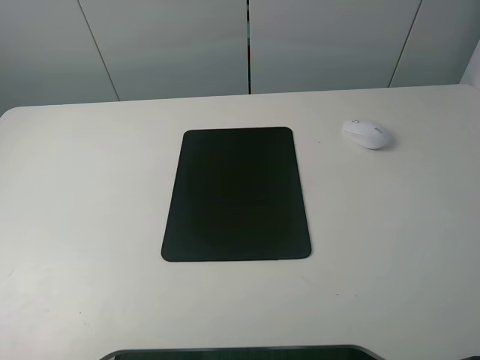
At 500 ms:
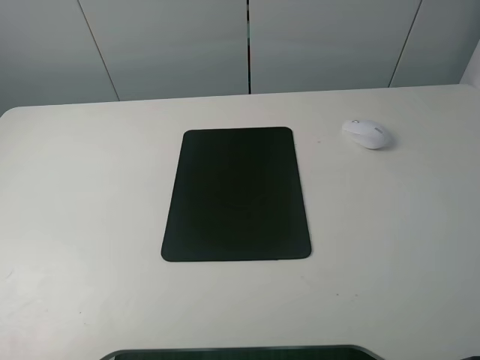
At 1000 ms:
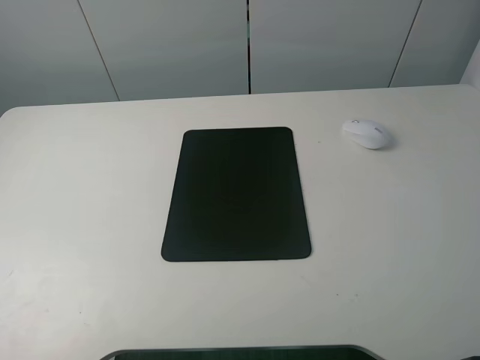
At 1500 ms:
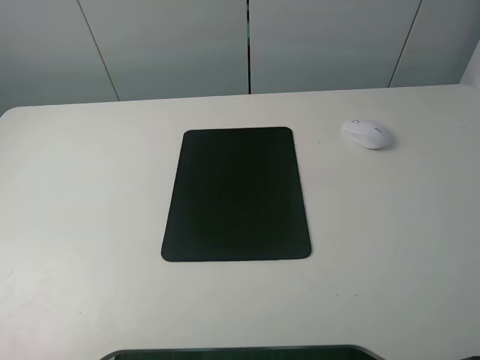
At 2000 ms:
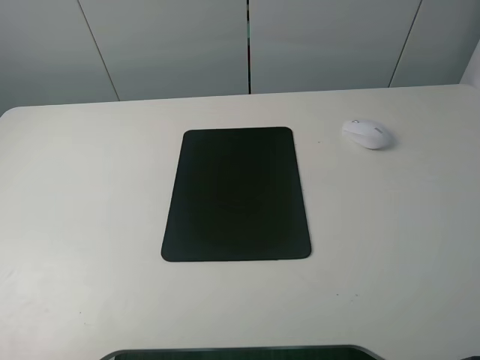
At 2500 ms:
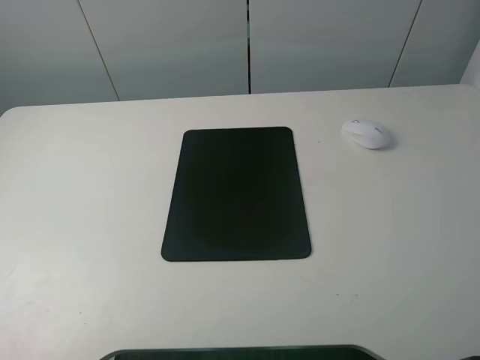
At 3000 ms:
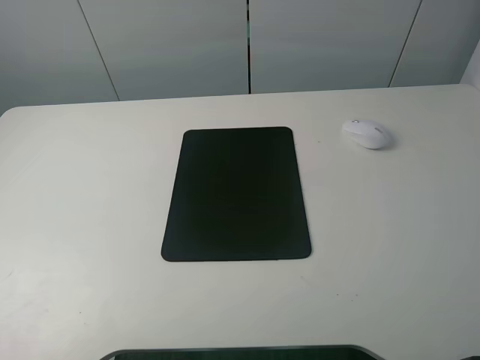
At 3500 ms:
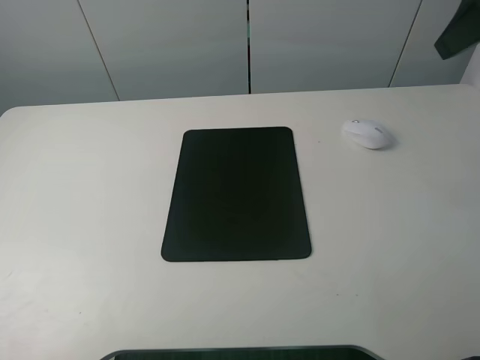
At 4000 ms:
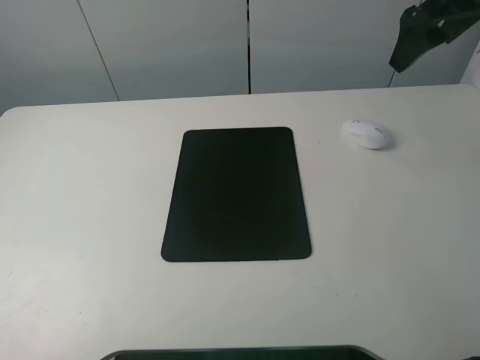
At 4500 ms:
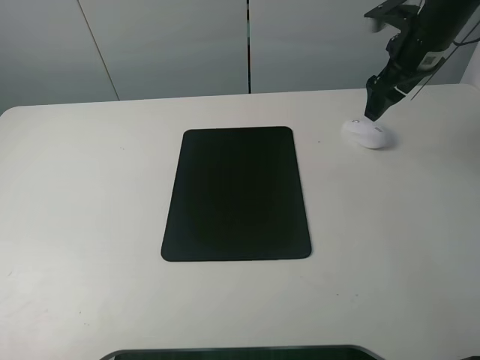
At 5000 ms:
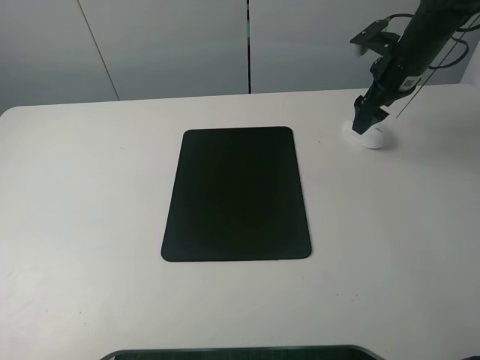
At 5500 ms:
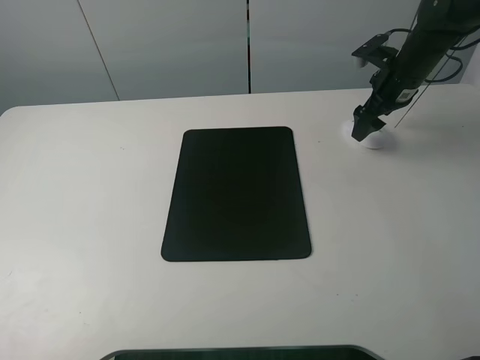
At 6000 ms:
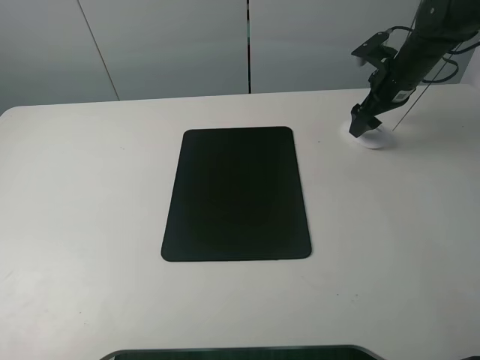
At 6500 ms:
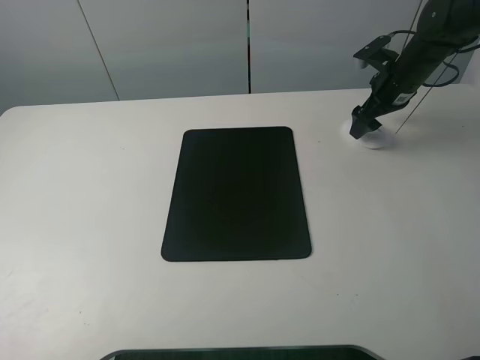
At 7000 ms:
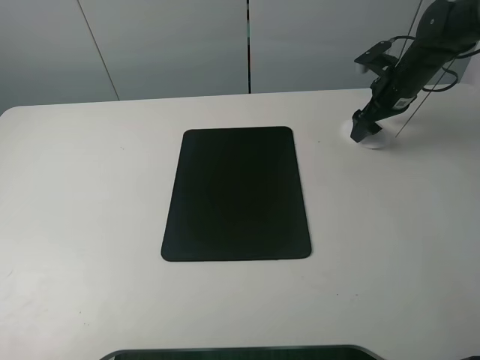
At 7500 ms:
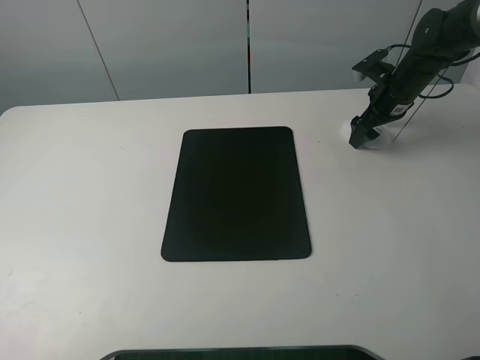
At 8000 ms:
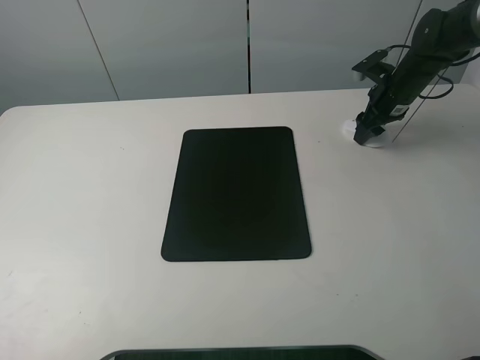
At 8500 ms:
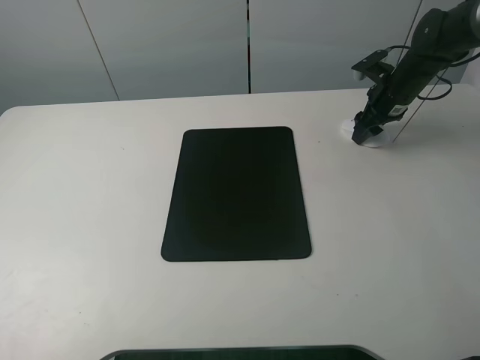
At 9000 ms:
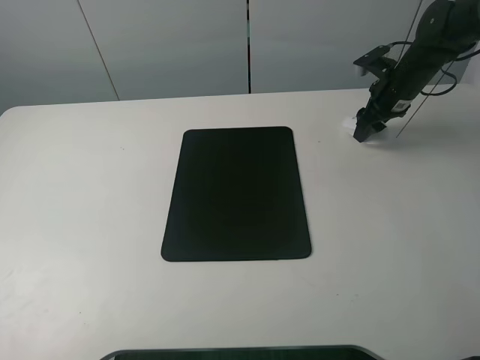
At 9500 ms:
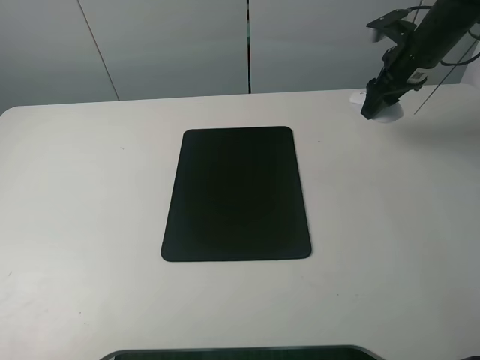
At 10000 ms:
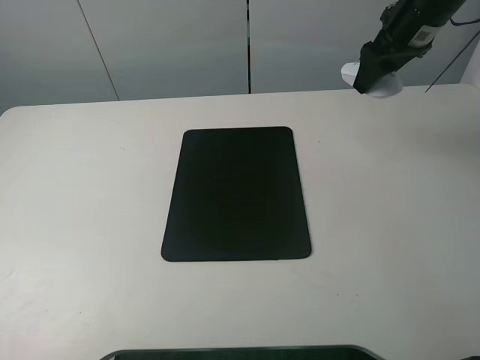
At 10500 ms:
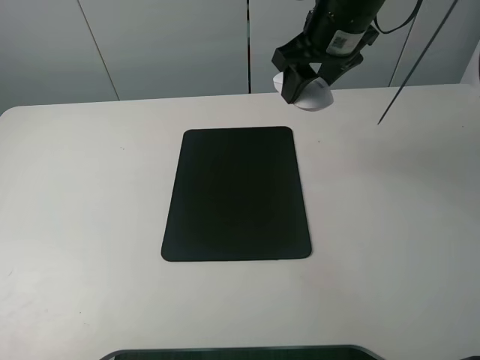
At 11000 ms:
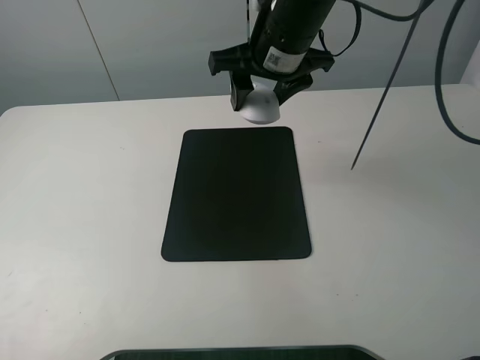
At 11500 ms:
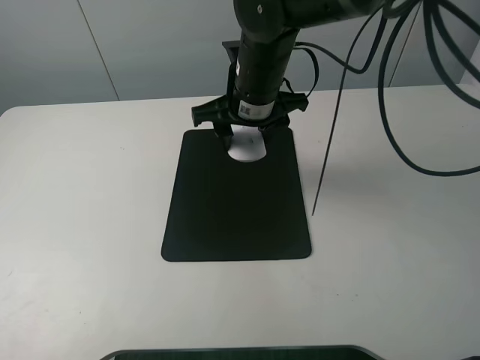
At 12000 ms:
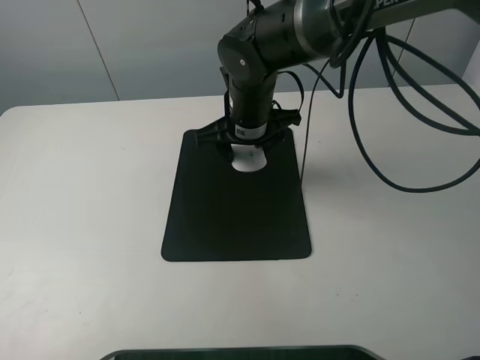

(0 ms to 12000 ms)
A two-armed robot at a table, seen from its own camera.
Step, 0 ms - 8000 ms: Grasp the mouse with the right gripper.
0 ms - 2000 ms: Both grippers stay put.
2000 ms - 4000 ms: The right gripper is displaced forward by some 35 cm.
4000 ms - 6000 ms: The right gripper goes about 20 cm downward and forward.
6000 ms - 8000 ms: The right gripper closes its fingers.
8000 ms - 10000 ms: The right gripper shifts some 15 cm upward.
10000 ms - 12000 ms: The right gripper goes about 25 cm to the left and downward.

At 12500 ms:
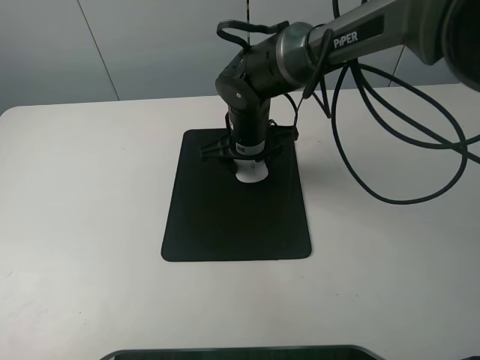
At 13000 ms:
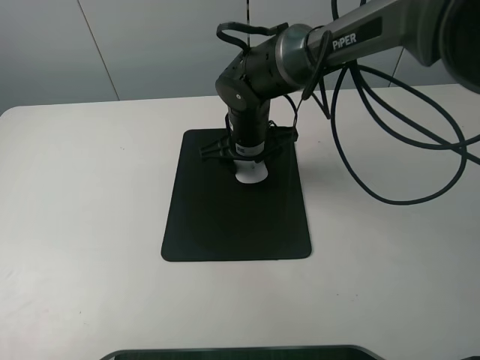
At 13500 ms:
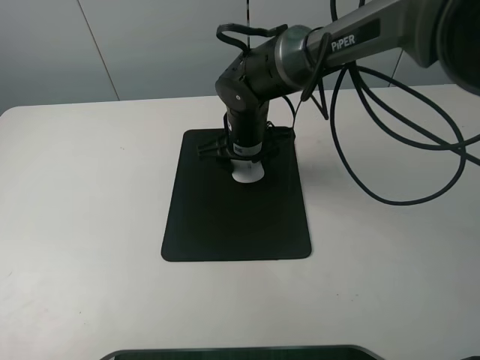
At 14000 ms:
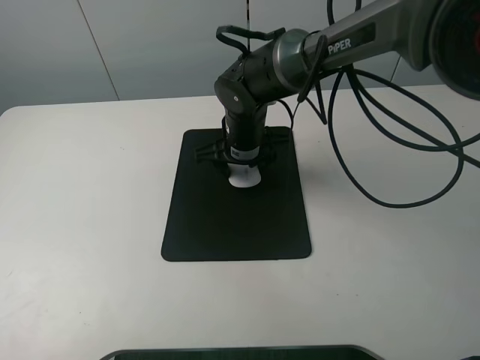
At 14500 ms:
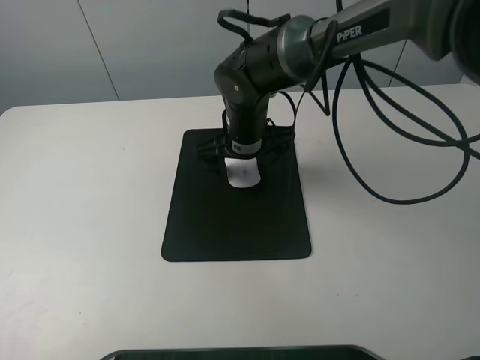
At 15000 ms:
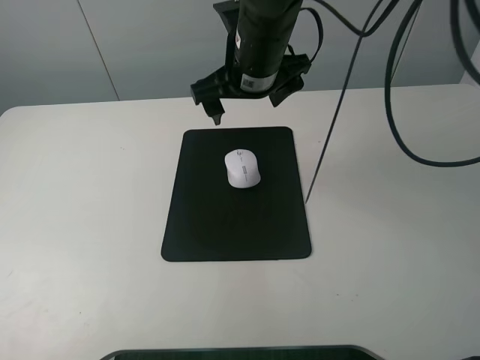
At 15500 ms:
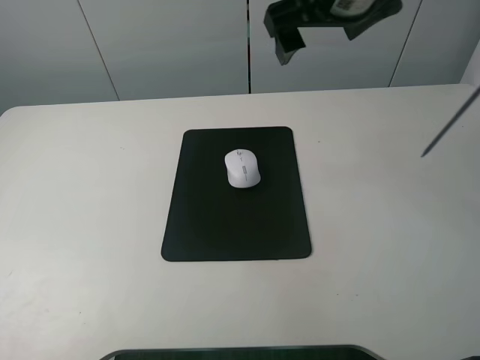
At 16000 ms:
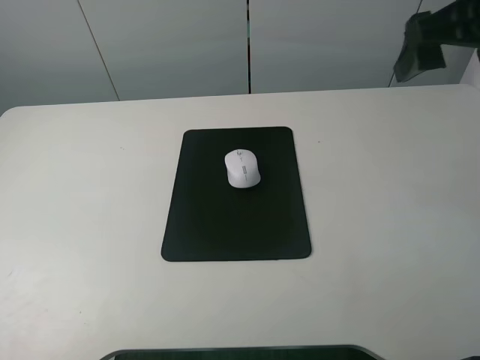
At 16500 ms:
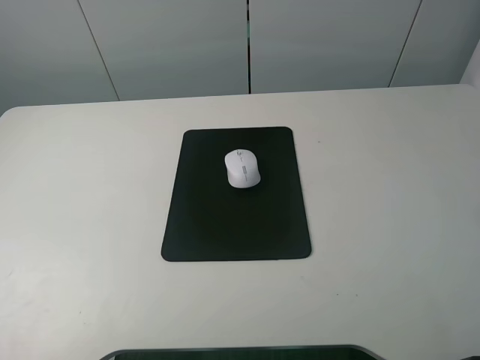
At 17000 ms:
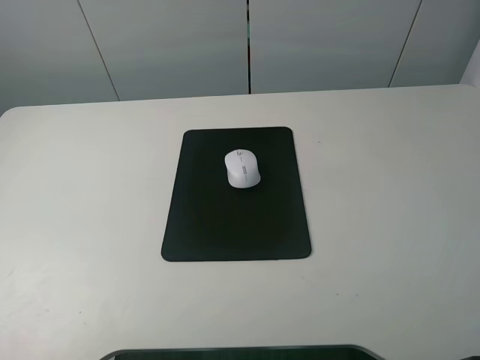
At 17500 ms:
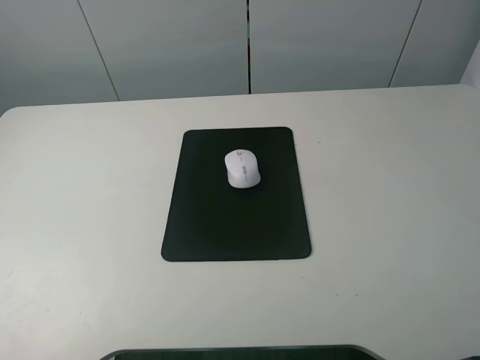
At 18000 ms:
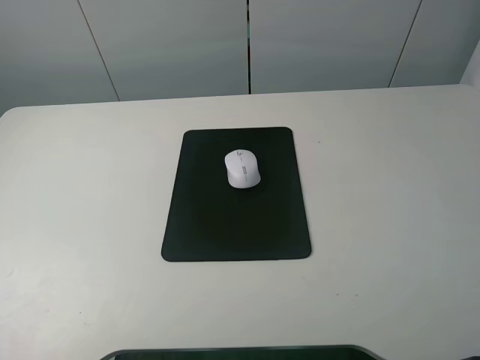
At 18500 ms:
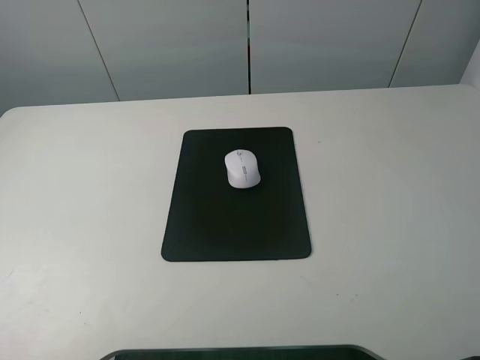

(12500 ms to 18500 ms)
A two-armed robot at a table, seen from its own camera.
12500 ms - 14500 ms: The right gripper opens.
14500 ms - 16500 ms: The right gripper is displaced to the right, upward and backward by about 40 cm.

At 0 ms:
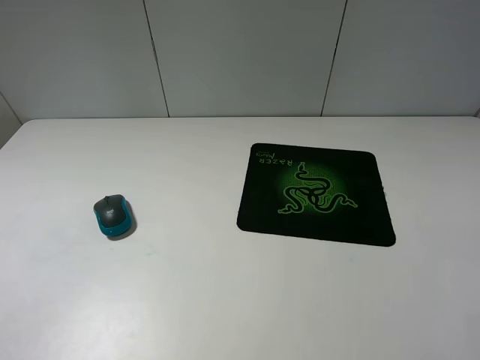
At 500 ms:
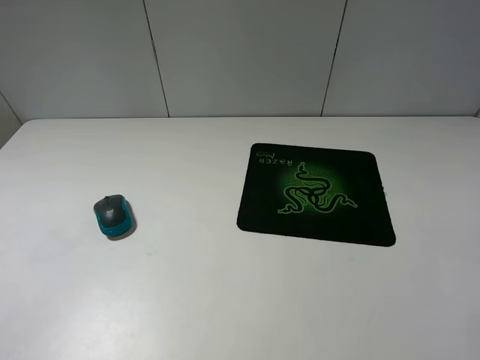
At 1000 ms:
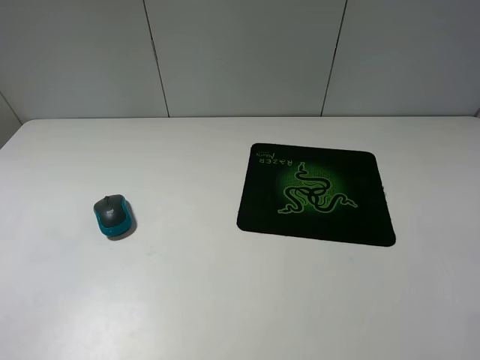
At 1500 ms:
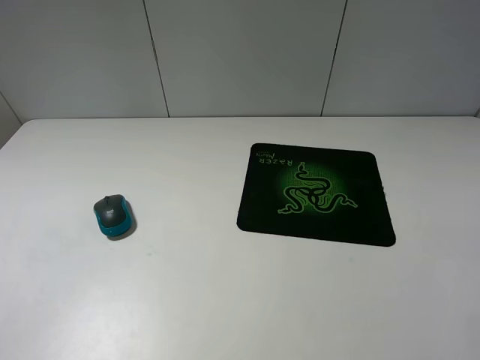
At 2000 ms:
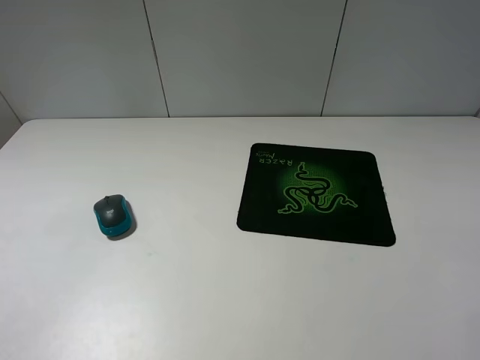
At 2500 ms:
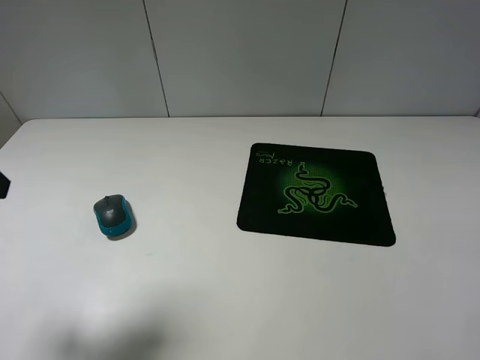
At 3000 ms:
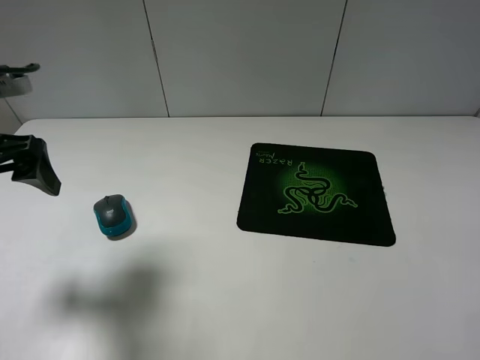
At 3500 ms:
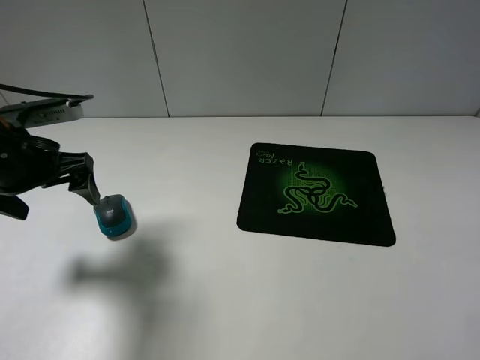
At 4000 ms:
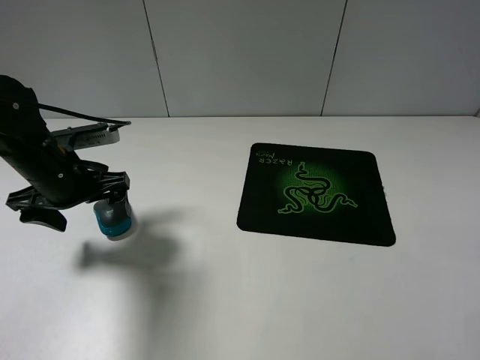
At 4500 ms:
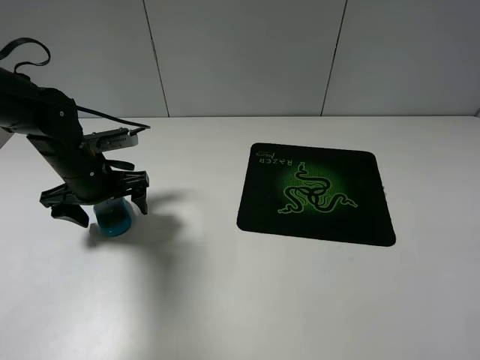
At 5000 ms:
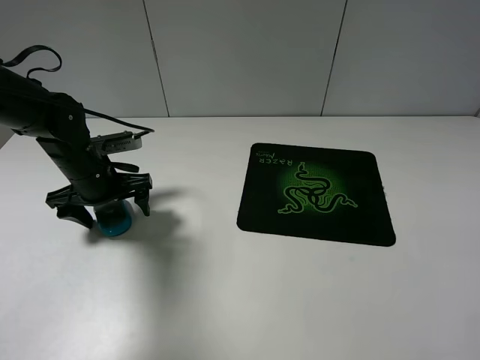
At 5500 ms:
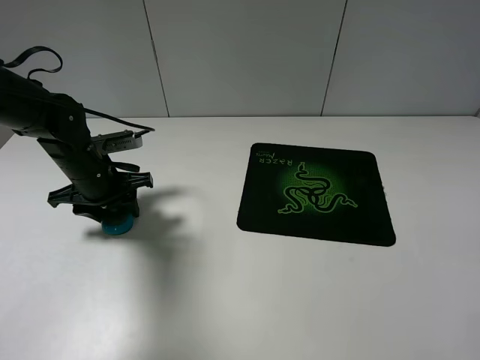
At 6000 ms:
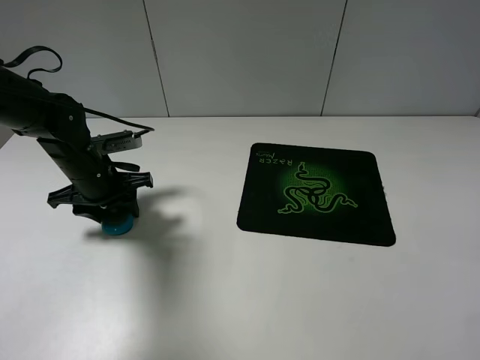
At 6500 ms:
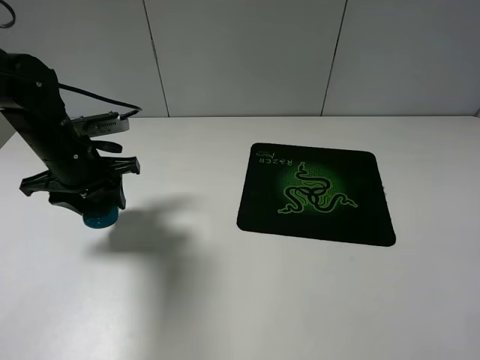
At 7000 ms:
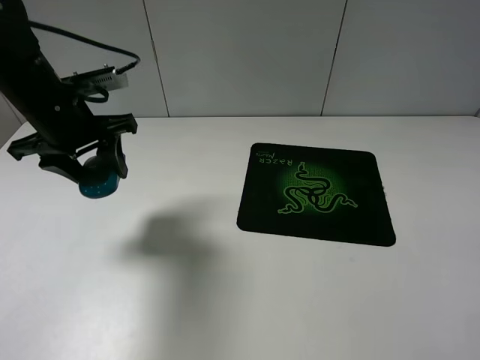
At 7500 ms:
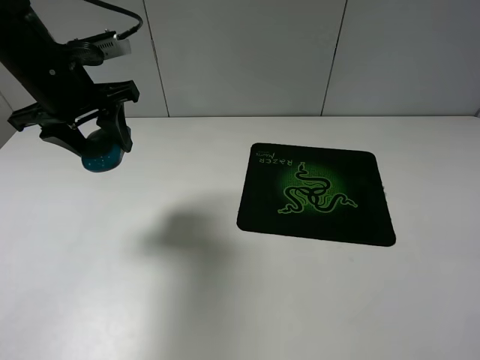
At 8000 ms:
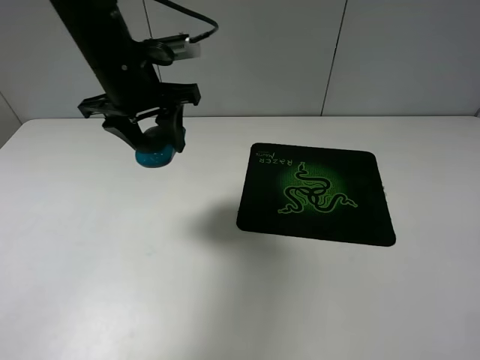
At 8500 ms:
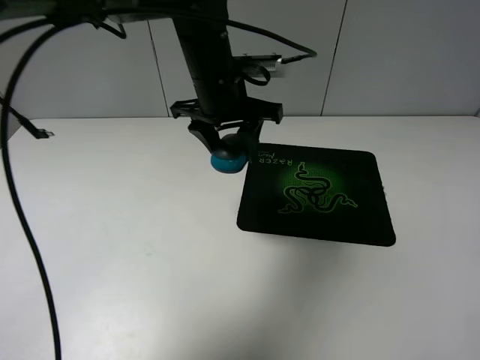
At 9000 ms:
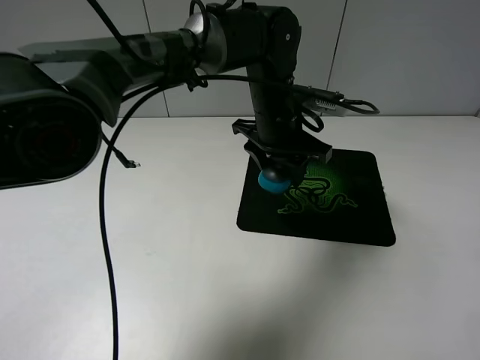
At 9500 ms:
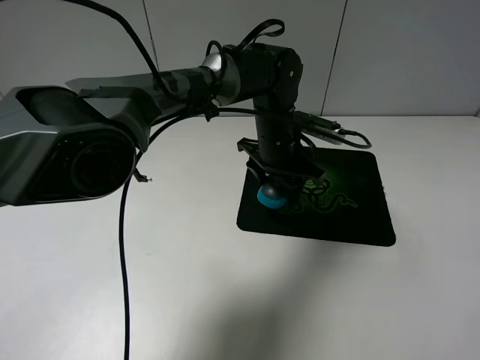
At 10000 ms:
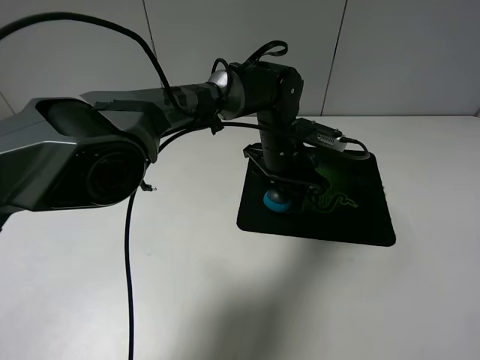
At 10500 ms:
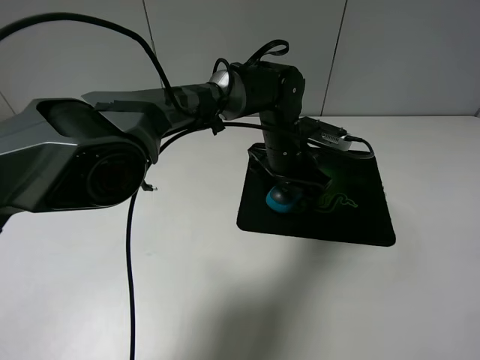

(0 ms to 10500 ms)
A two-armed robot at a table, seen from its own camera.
Step, 0 ms - 6000 ms: Grasp the mouse with the left gripper.
2000 ms - 4000 ms: The left gripper shifts approximately 30 cm forward and downward.
4000 ms - 6500 ms: The left gripper closes its fingers.
6500 ms - 8500 ms: The left gripper travels to the right by some 20 cm.
8500 ms - 10500 ms: The left gripper shifts approximately 15 cm downward and to the right, and opens its fingers.
